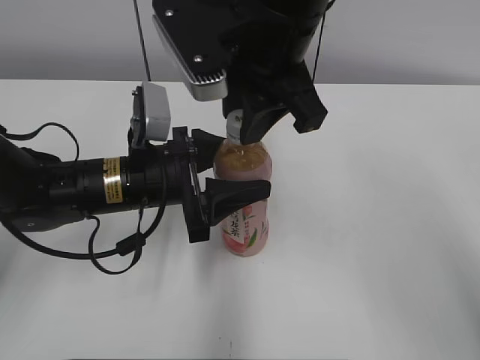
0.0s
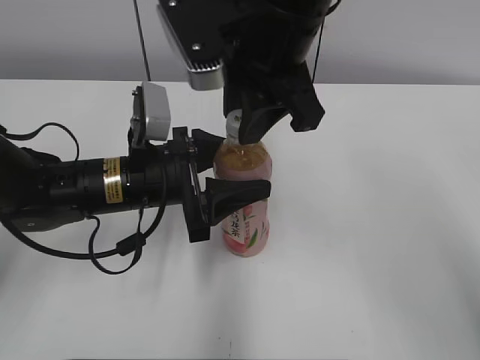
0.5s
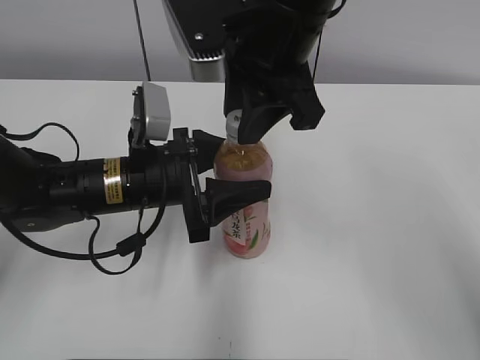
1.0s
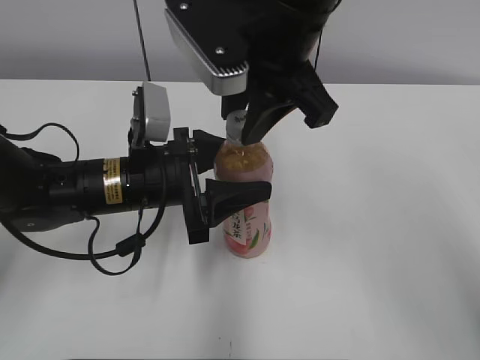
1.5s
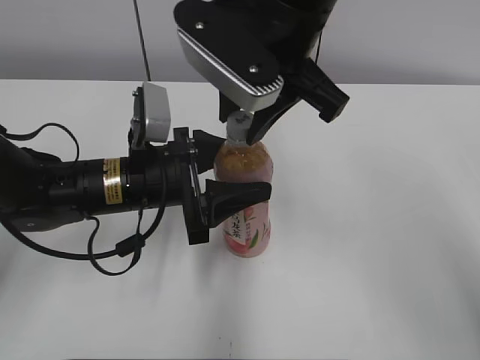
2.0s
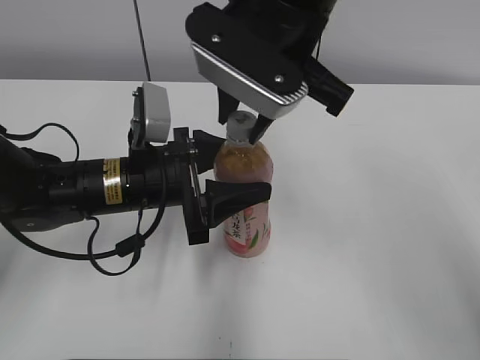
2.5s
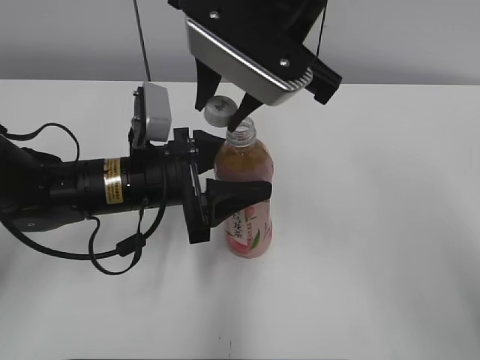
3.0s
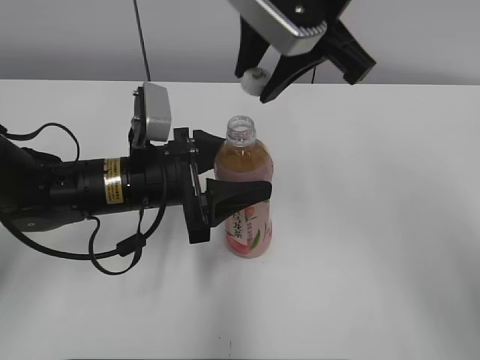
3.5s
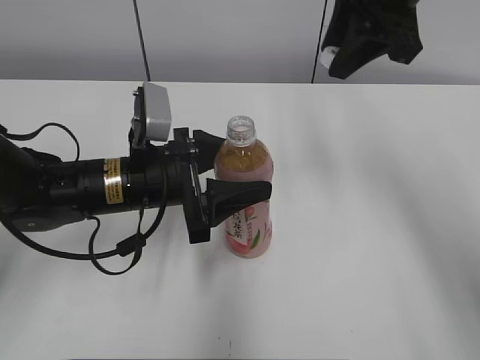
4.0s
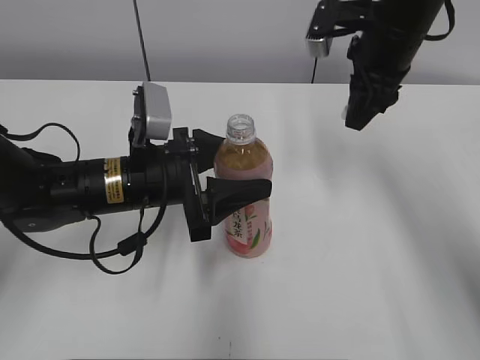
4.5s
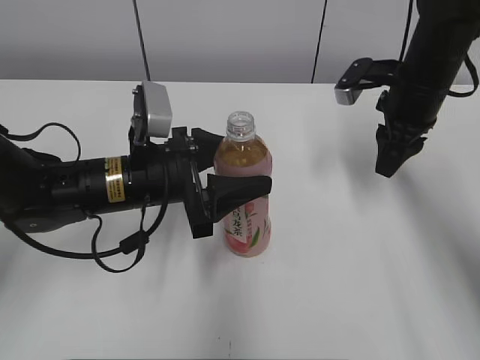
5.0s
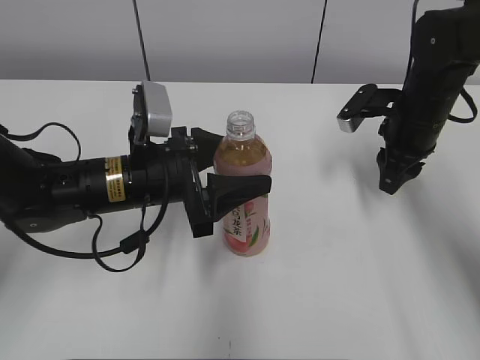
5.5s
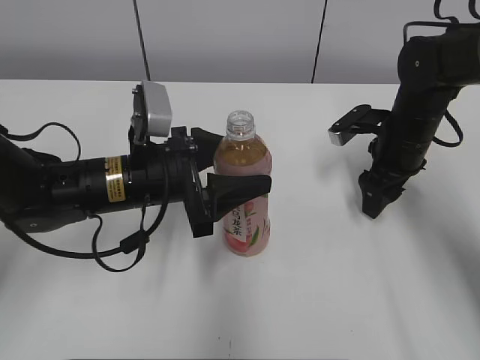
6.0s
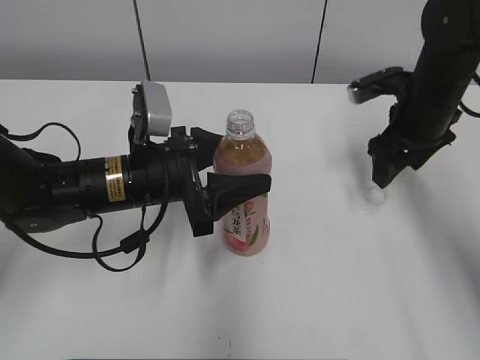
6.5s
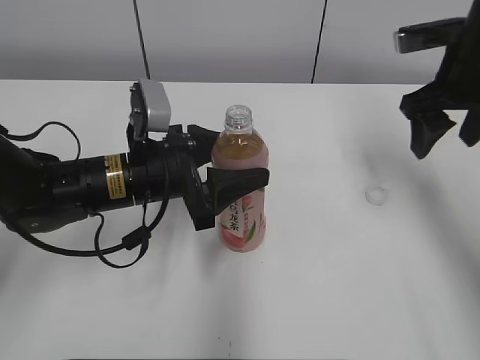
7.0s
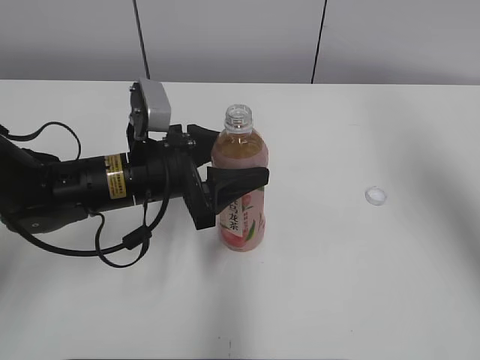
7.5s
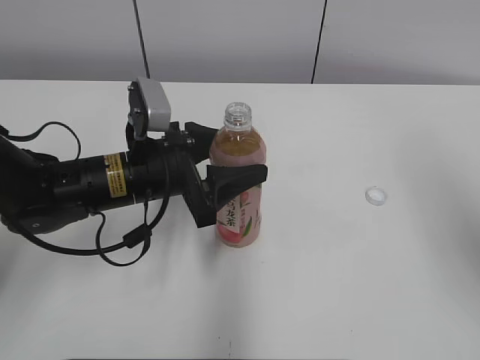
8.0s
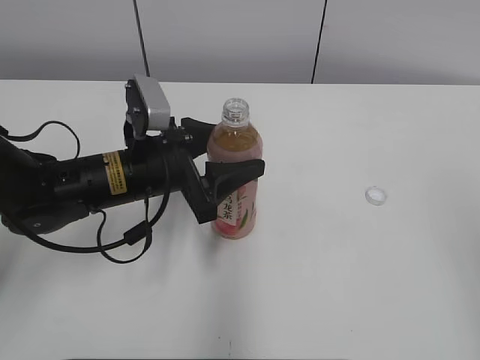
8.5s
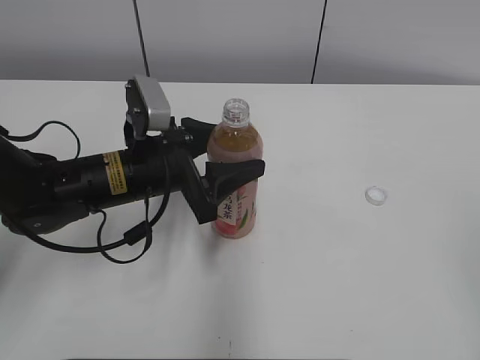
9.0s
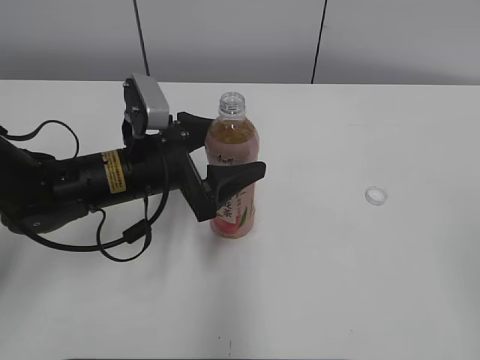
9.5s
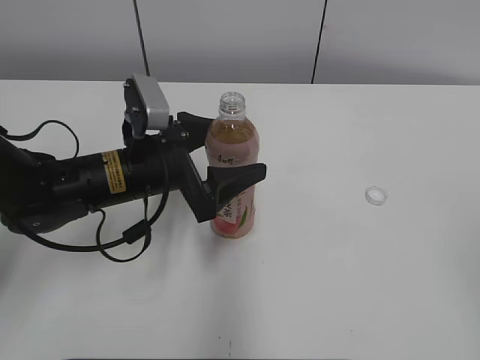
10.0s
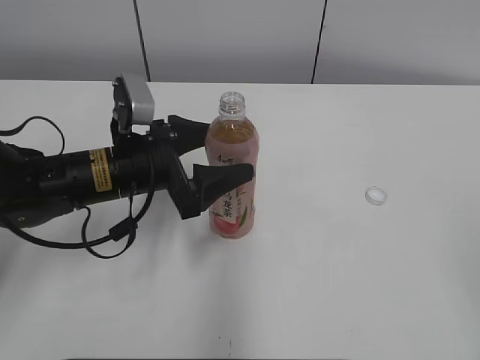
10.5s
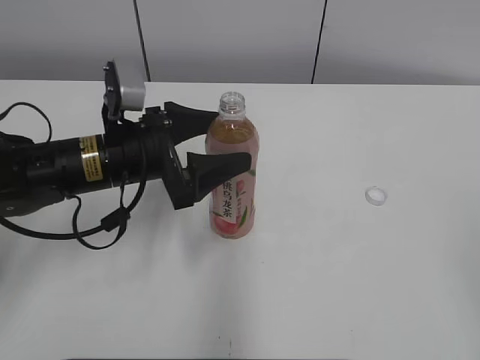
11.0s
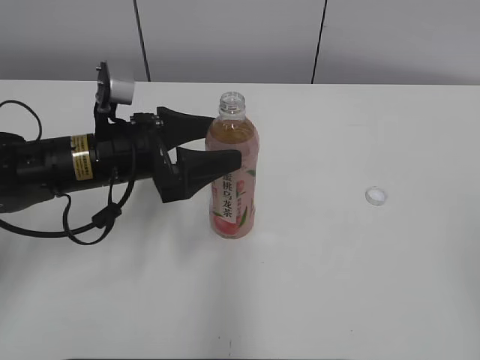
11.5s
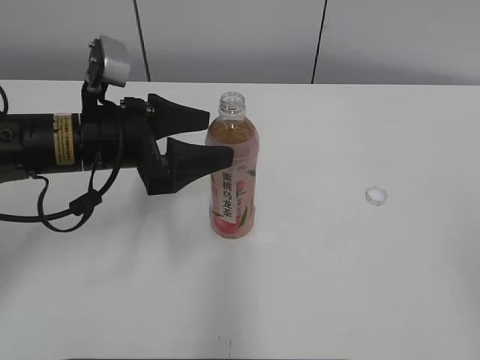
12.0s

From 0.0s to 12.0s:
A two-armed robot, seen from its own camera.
Step, from 3.0s to 6.0s: Place the bottle cap on the right.
Step, from 6.5s to 12.0s: Place the Peach Oolong Tea with the left hand.
From 0.0s to 2.0s: There are only small adjustments of the grippers.
From 2.0s to 4.0s: The right gripper moves to the right and forward, about 15 cm.
From 4.0s to 6.0s: The right gripper moves downward, approximately 20 cm, and opens its fingers.
From 6.0s to 8.0s: The right gripper heads upward and backward, covering some 30 cm.
From 8.0s to 10.0s: The right gripper travels backward and downward by approximately 15 cm.
From 10.0s to 12.0s: The left gripper ends up some 5 cm from where it was.

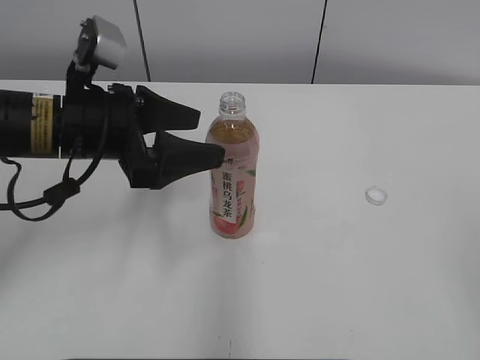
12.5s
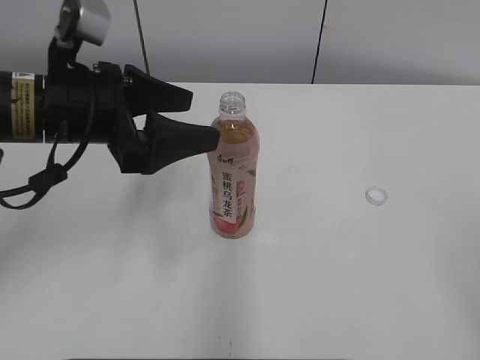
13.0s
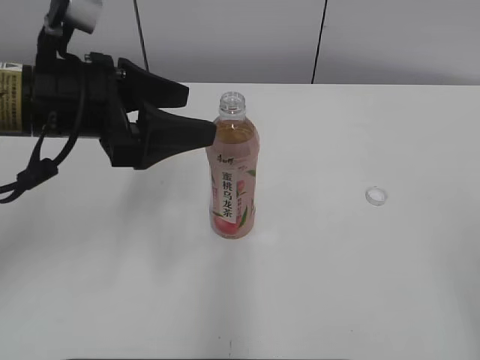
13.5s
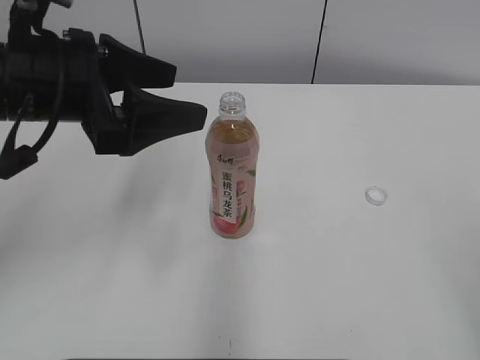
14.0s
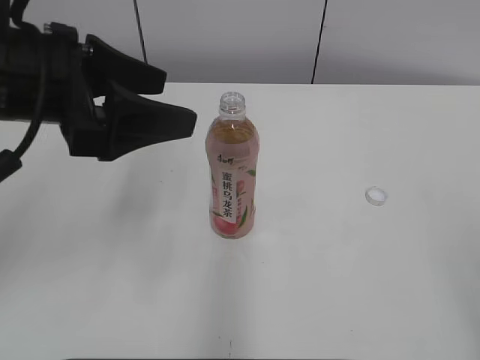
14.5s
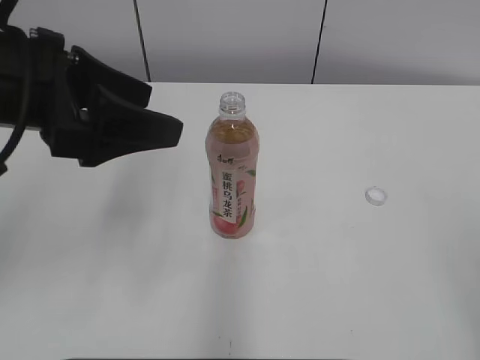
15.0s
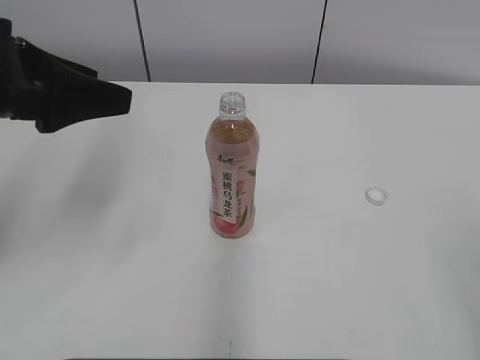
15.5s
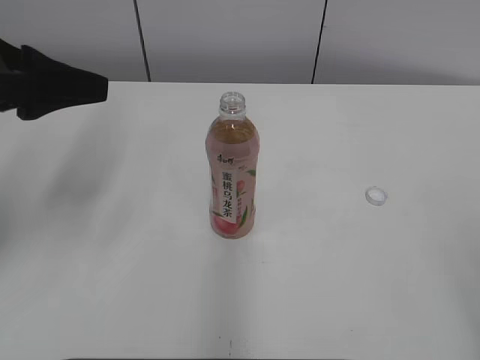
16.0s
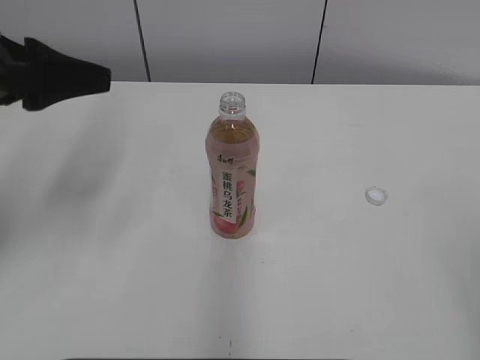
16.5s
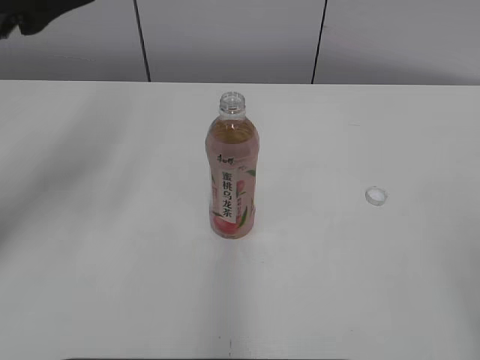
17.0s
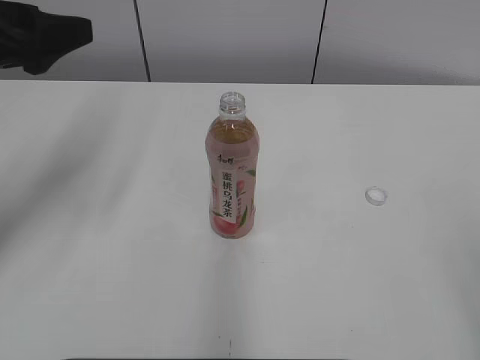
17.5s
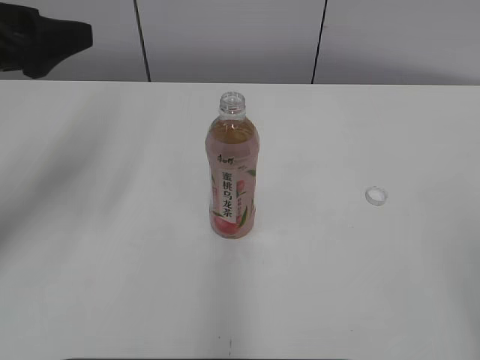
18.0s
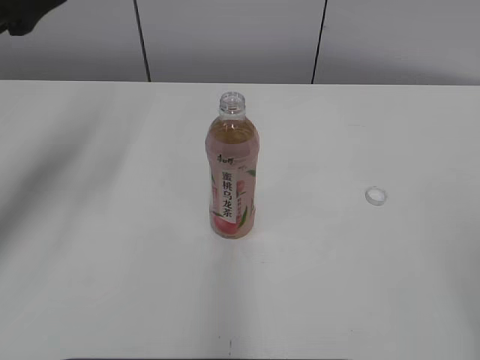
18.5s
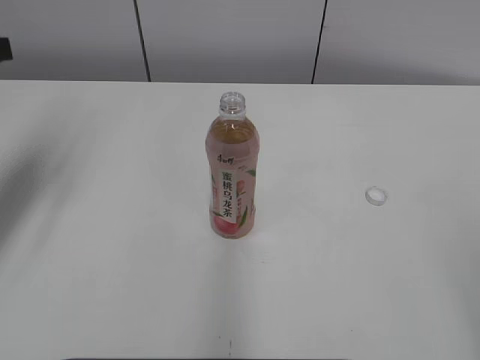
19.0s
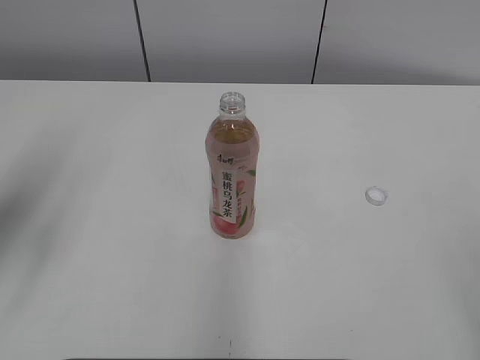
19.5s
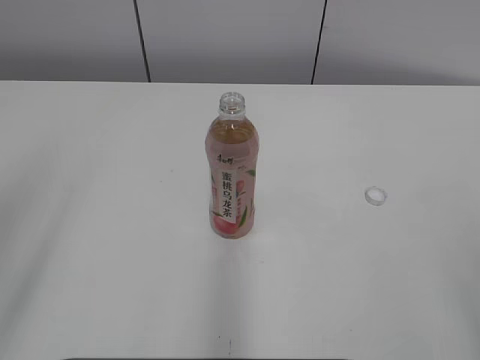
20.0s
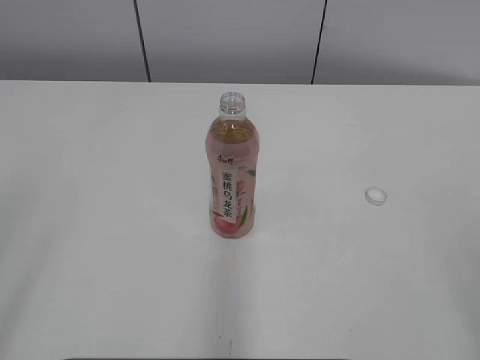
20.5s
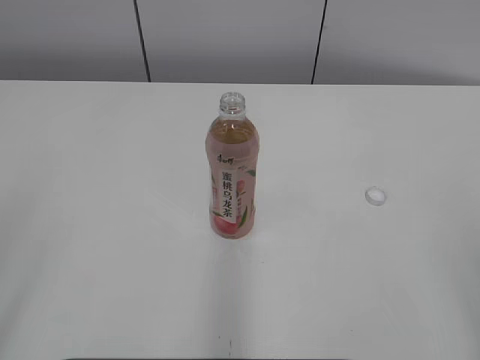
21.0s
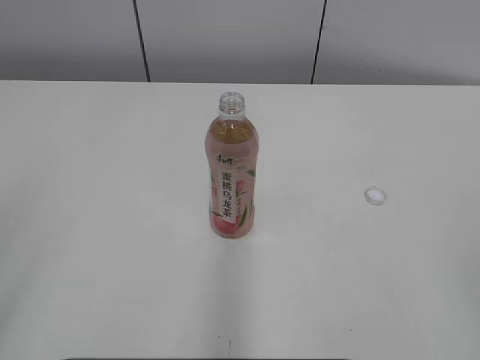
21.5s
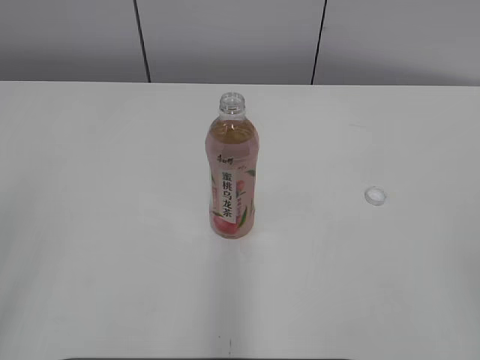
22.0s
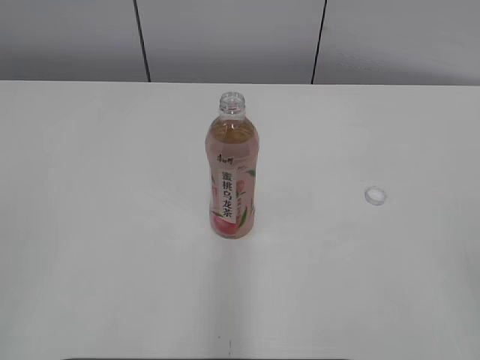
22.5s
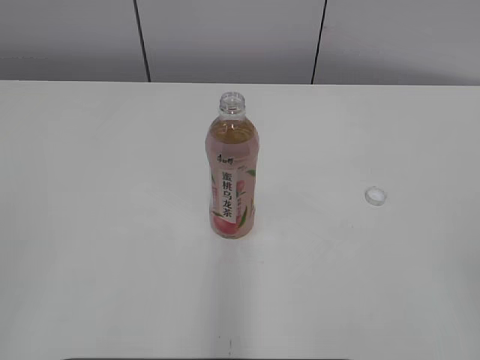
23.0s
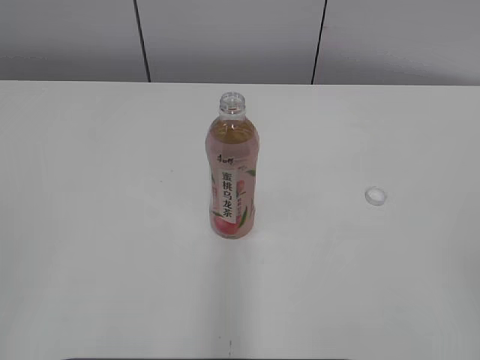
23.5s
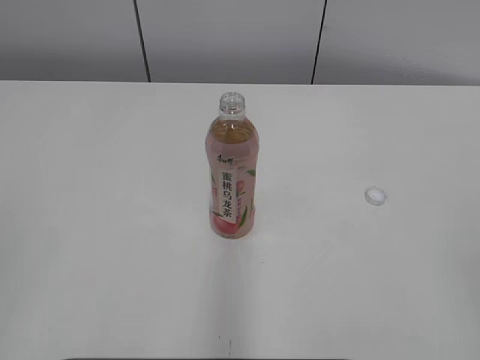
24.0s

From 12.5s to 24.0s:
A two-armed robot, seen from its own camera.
From 12.5s to 14.5s: The left gripper heads upward, covering approximately 5 cm.
From 14.5s to 16.5s: The left gripper moves to the left, some 5 cm.
From 18.5s to 20.0s: The left gripper travels backward by some 20 cm.

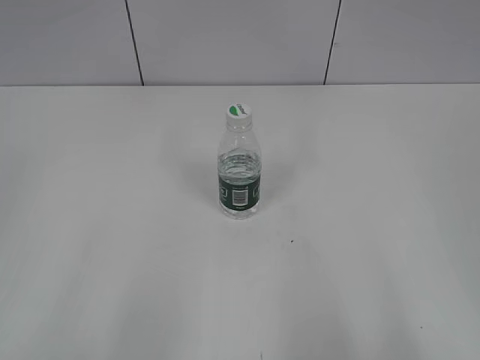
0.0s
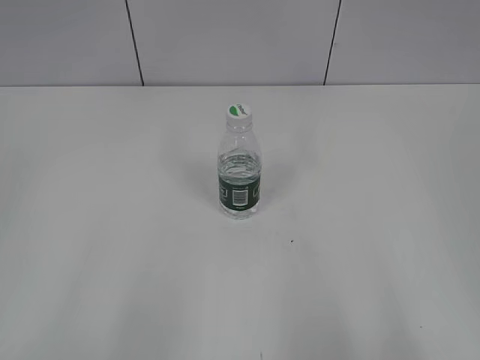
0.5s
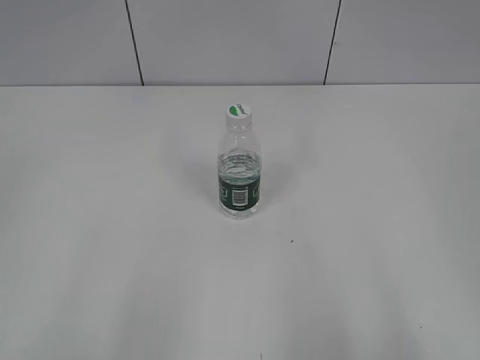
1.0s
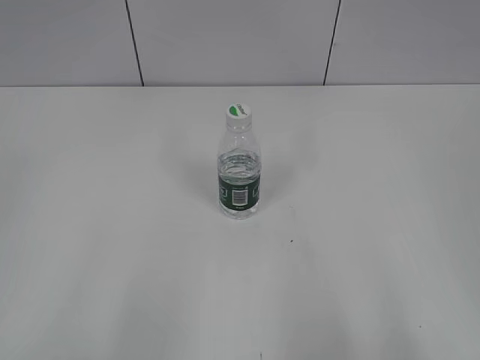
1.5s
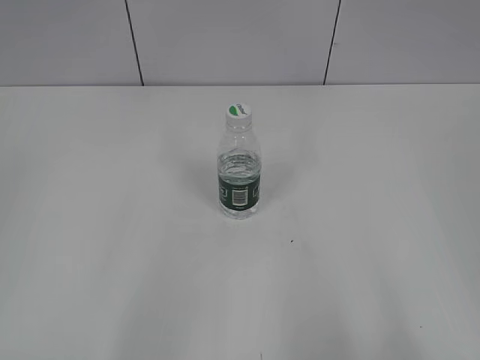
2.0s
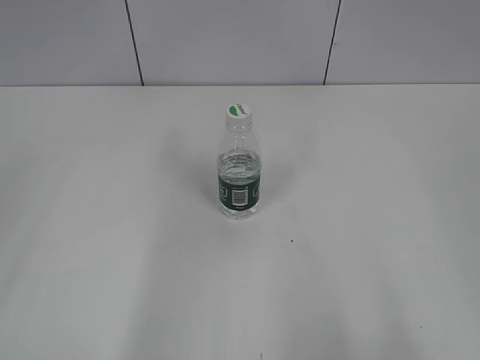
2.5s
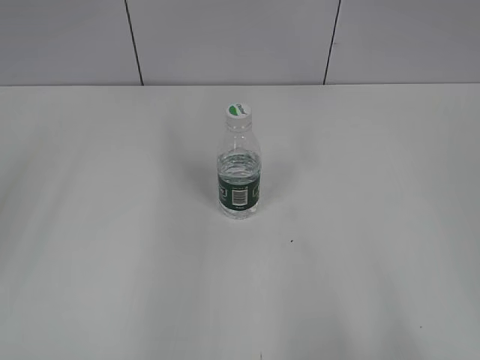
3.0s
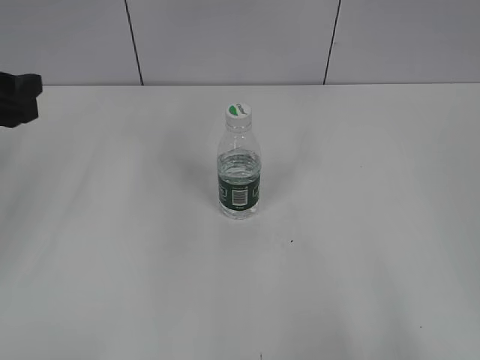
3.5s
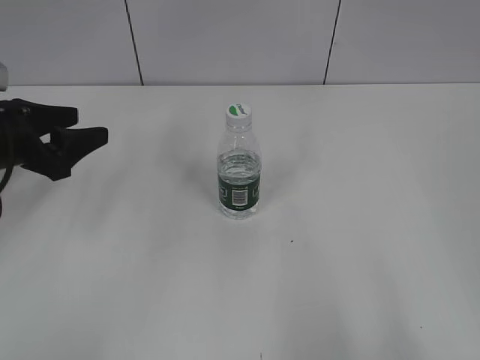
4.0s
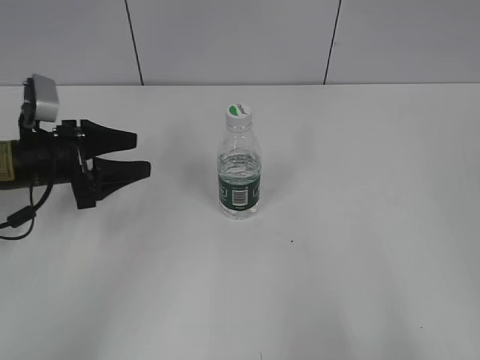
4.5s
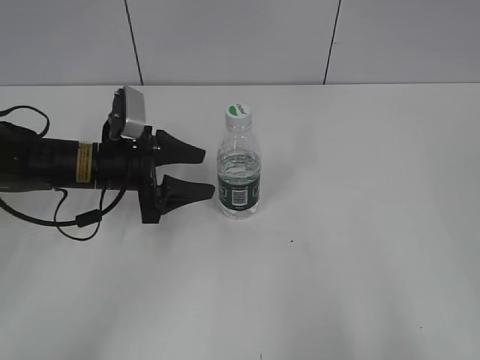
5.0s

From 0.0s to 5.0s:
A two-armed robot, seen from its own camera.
From 2.5s to 5.0s: The left gripper shifts approximately 35 cm forward, downward and to the right.
